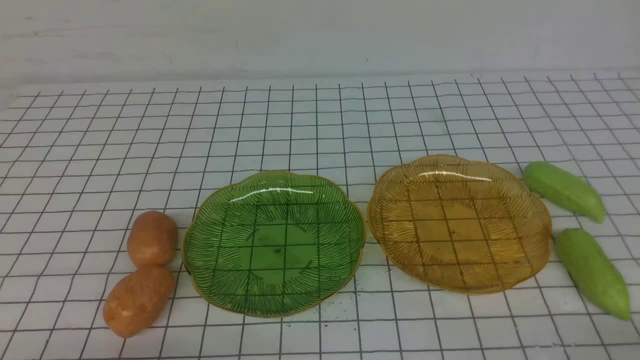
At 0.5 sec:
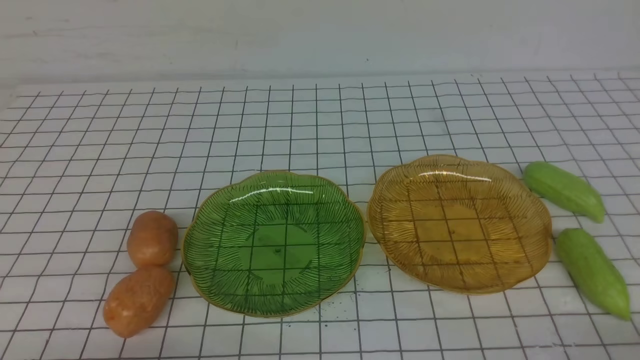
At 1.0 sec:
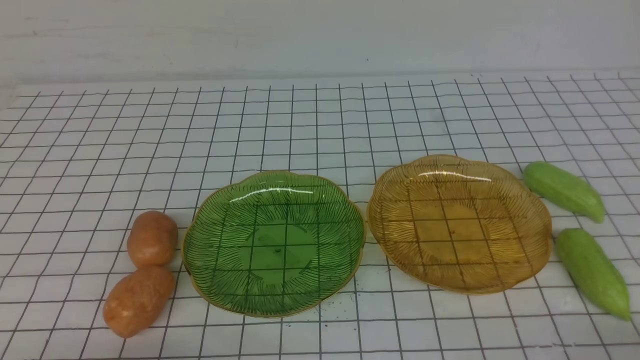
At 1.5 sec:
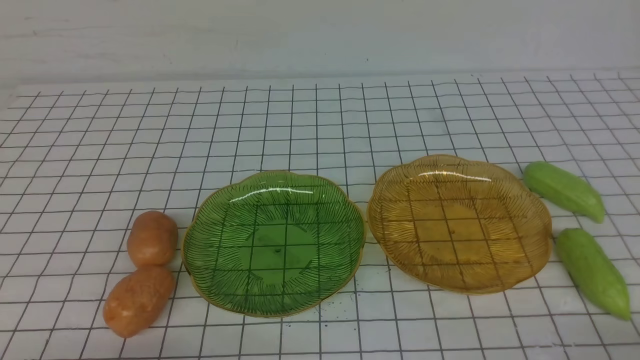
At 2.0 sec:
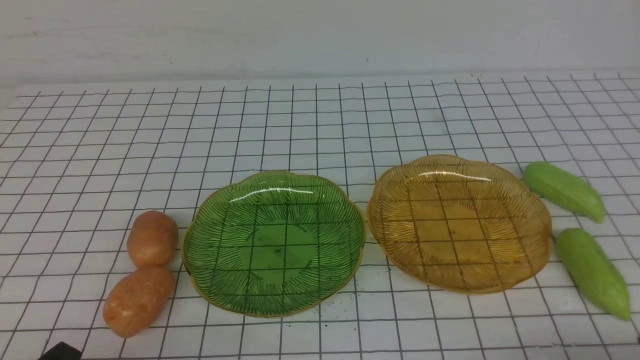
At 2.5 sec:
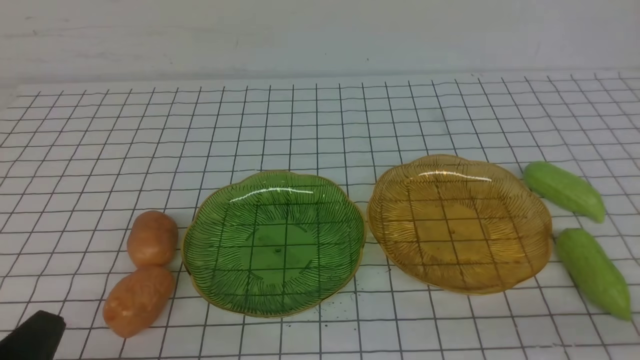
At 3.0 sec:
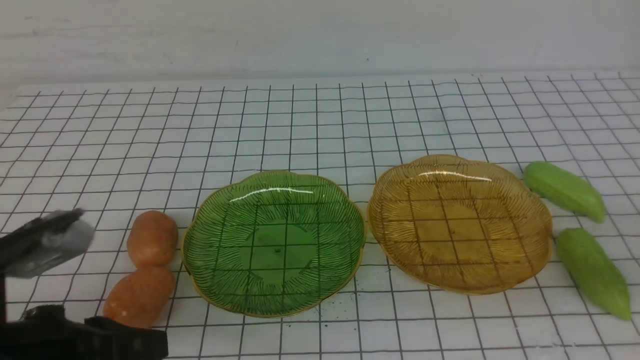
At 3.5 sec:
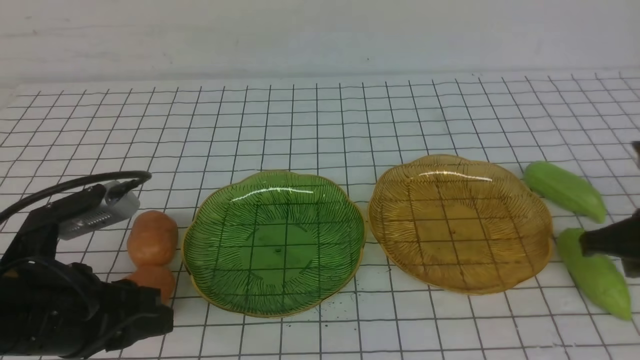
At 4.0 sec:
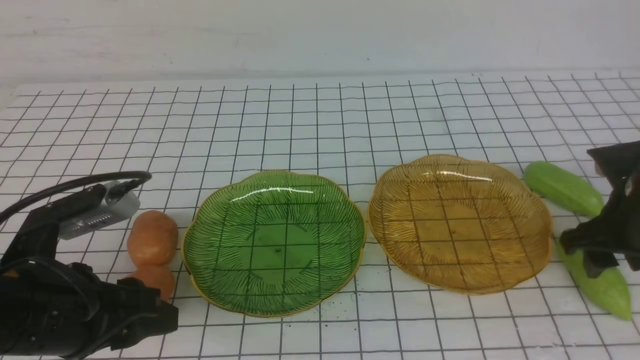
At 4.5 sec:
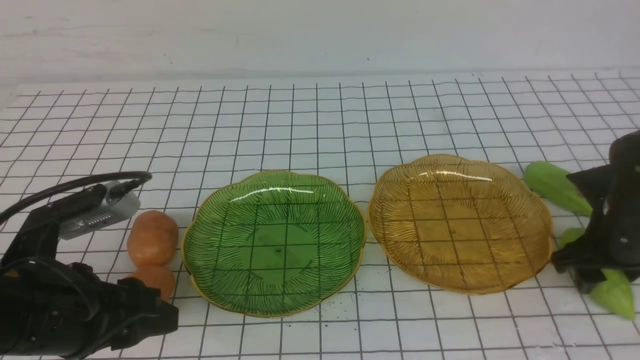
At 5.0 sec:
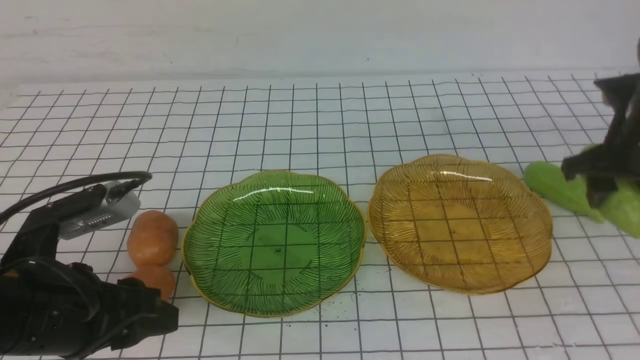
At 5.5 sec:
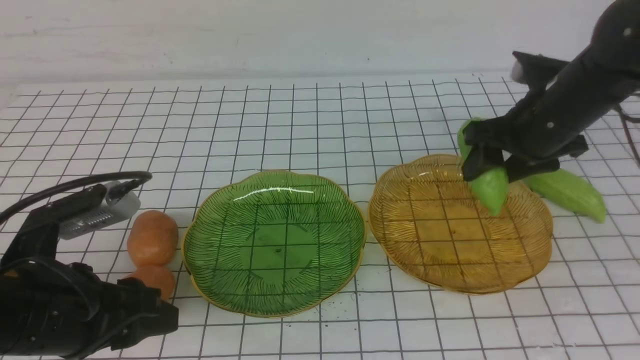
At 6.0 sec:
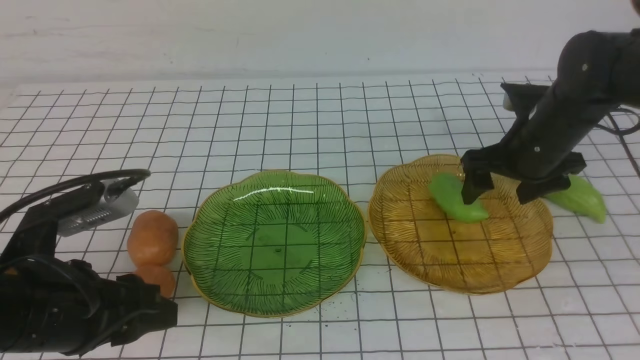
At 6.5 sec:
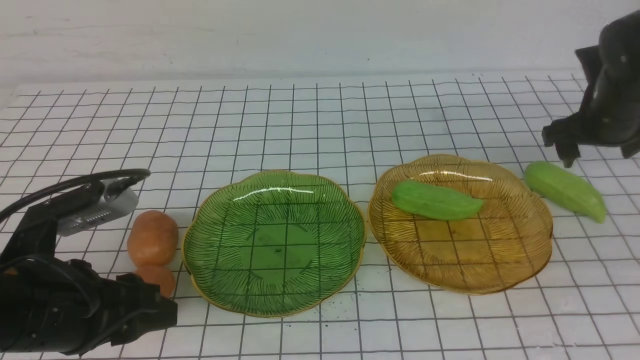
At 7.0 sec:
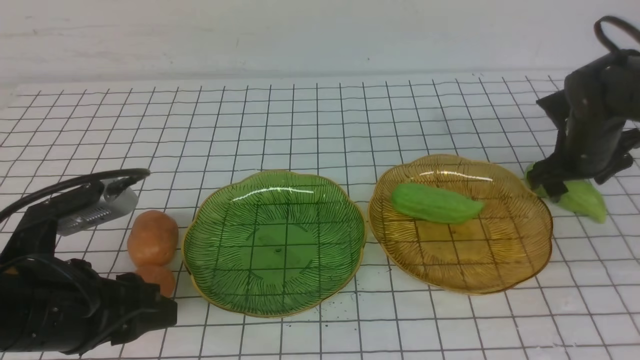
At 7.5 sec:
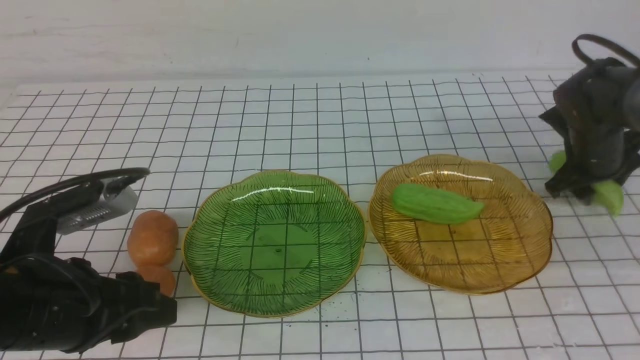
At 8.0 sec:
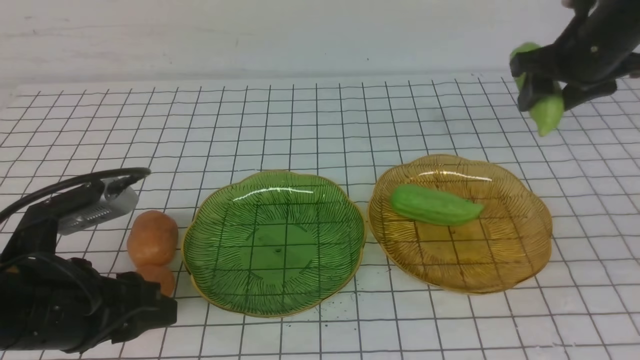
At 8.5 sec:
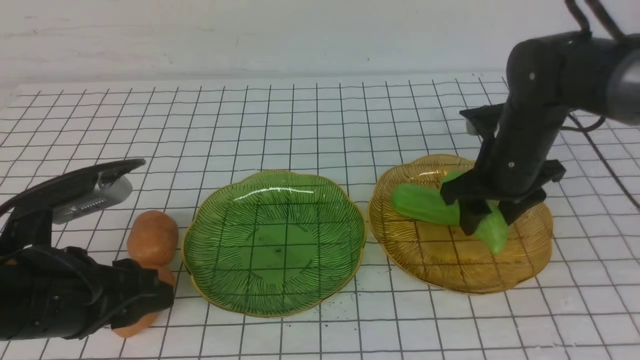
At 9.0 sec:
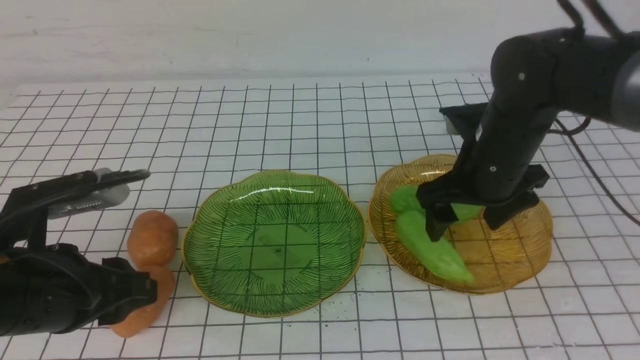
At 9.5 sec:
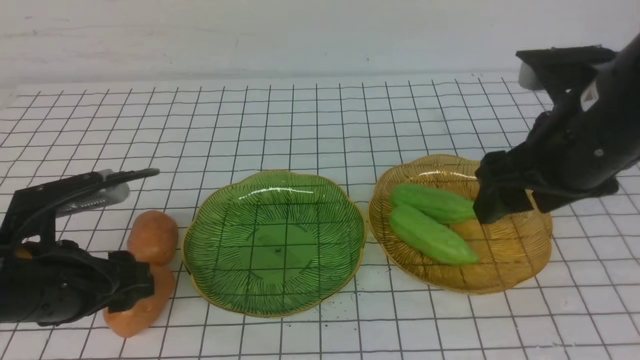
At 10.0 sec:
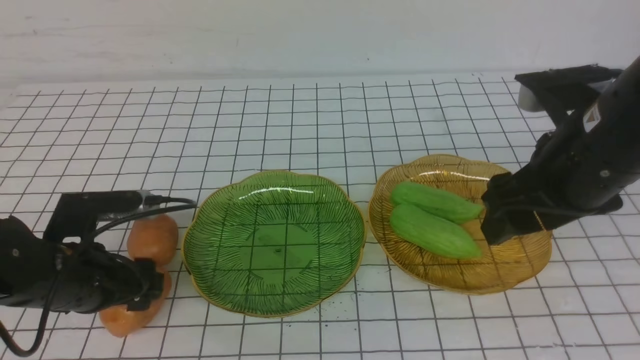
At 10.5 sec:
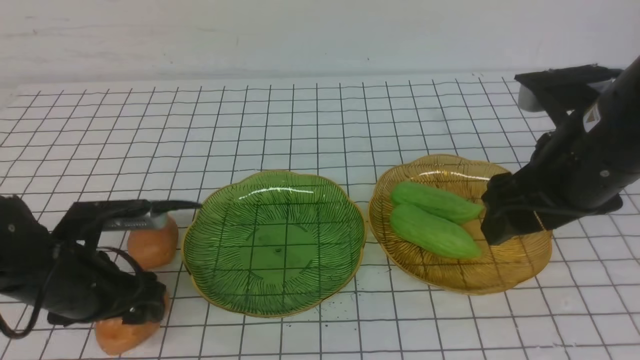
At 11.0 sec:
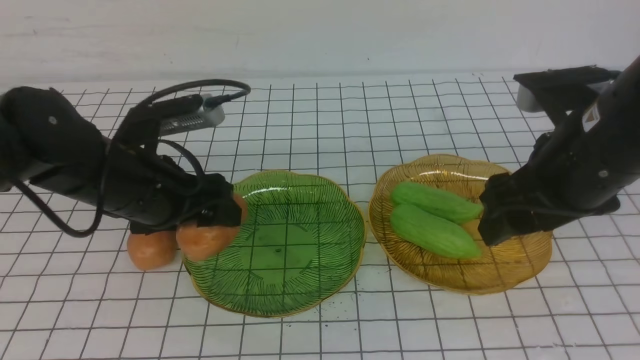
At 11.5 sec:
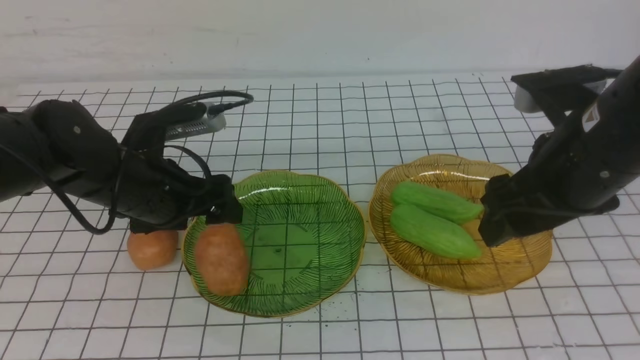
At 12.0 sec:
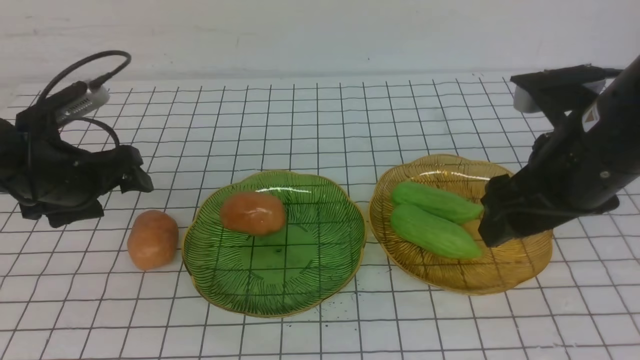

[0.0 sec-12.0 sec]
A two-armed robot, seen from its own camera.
Step, 0.0 sec to 8.5 sec: use the right arm to grab a chayote and put it into the right plate.
Step, 9.5 sec to 11.0 sec: Grab a potato with your left arm and put it on the left plate.
2.0 sec to 4.0 sec: The right gripper heads forward, covering approximately 25 cm, and opens its fingers, while the left gripper goes roughly 15 cm forward and upward, and opens.
4.0 sec to 6.0 sec: The right gripper travels forward and to the left by approximately 10 cm, moves roughly 5 cm upward and comes back, and opens its fingers.
6.0 sec to 8.0 sec: The right gripper goes roughly 5 cm to the right and upward.
8.0 sec to 10.0 sec: The right gripper travels backward and to the left by approximately 20 cm. The left gripper moves forward and downward, about 10 cm, and opens its fingers.
10.0 sec to 12.0 sec: The left gripper shifts about 10 cm forward.

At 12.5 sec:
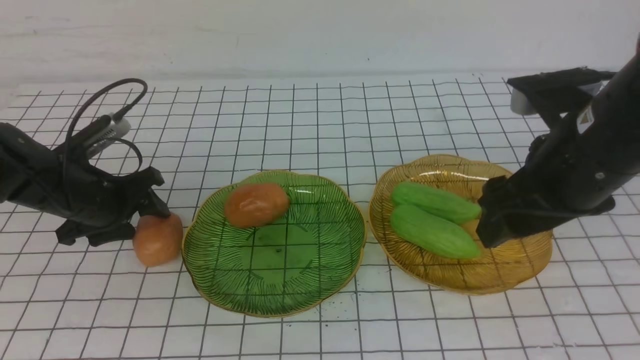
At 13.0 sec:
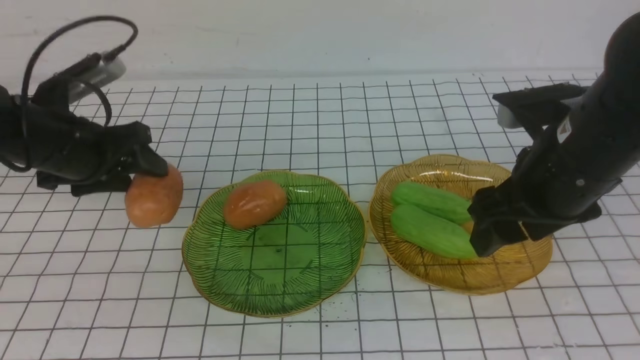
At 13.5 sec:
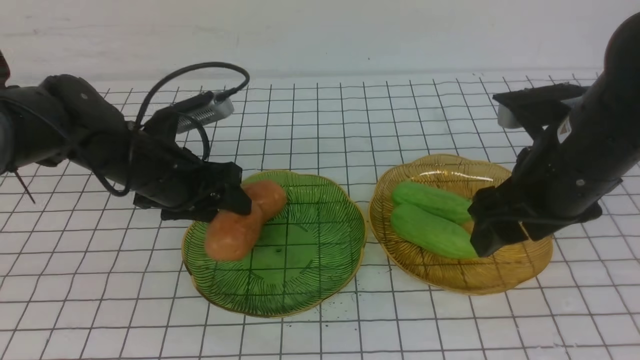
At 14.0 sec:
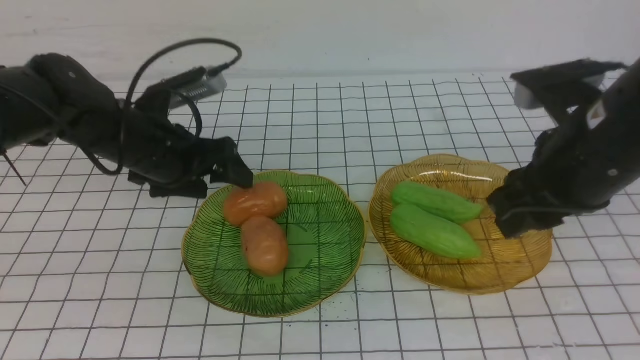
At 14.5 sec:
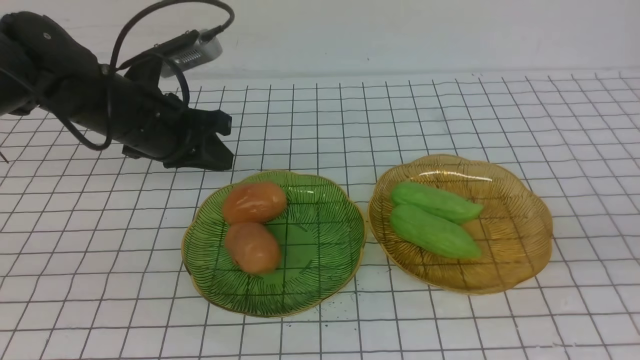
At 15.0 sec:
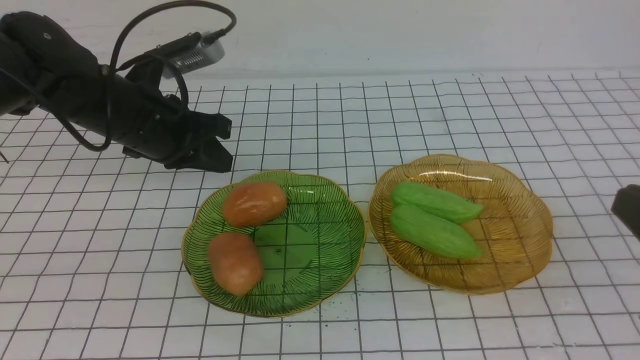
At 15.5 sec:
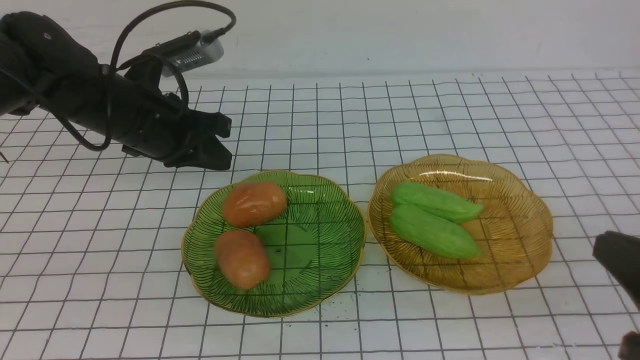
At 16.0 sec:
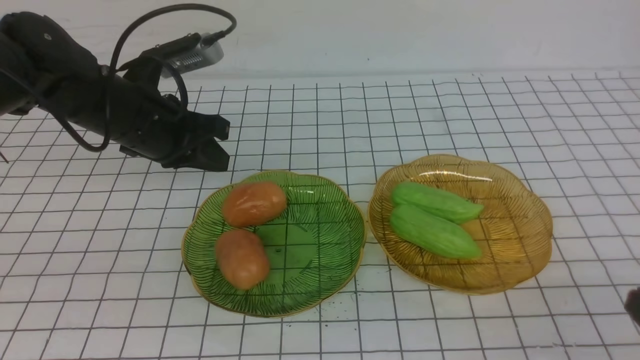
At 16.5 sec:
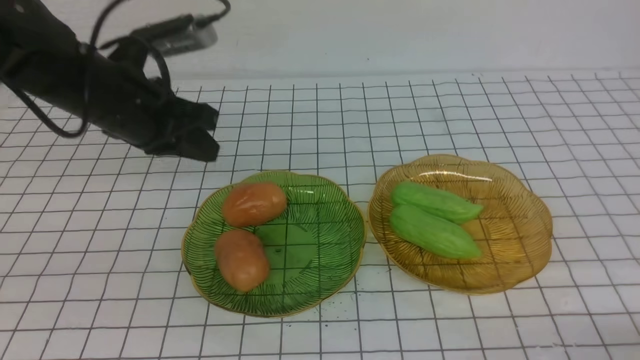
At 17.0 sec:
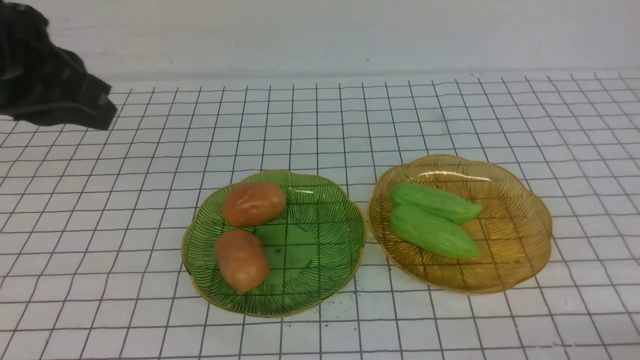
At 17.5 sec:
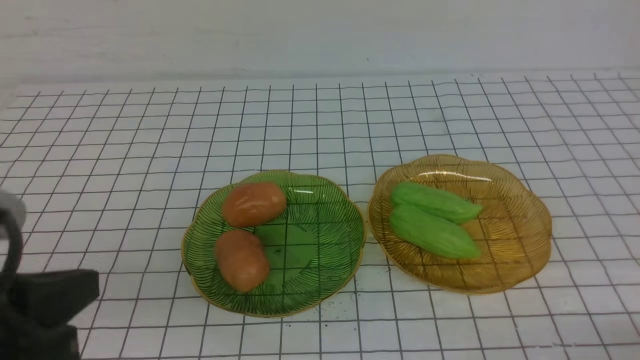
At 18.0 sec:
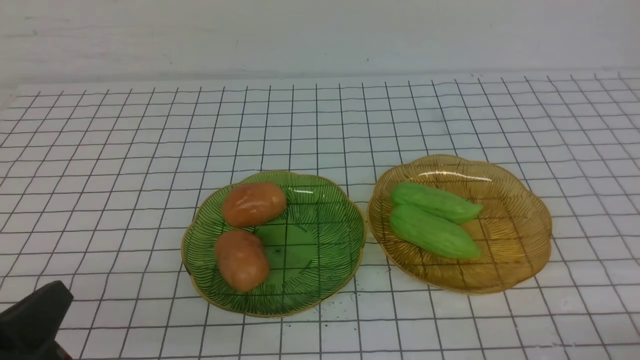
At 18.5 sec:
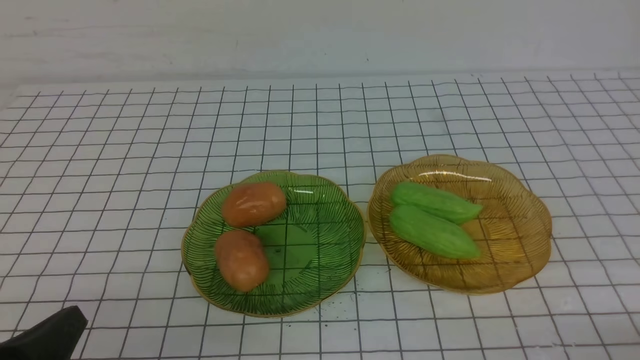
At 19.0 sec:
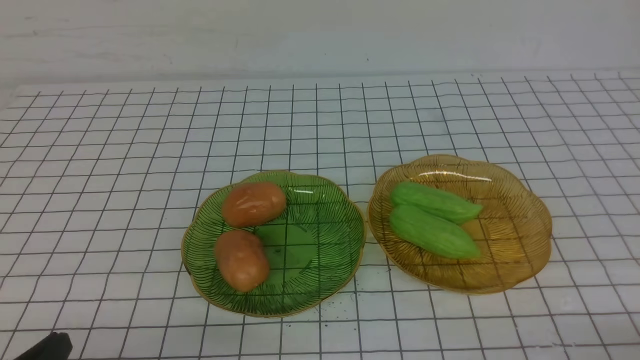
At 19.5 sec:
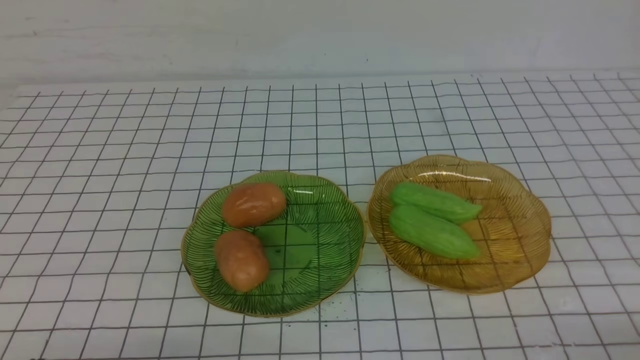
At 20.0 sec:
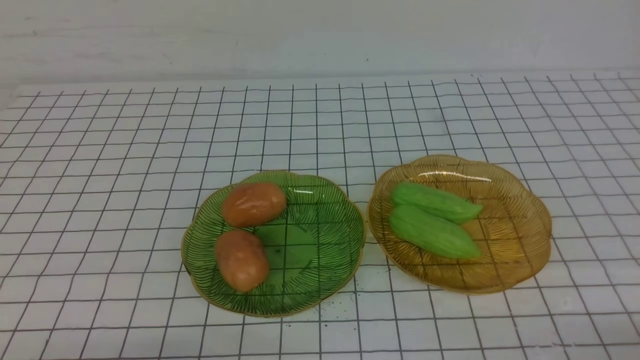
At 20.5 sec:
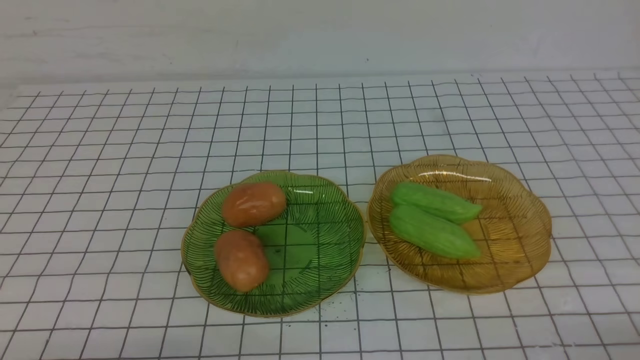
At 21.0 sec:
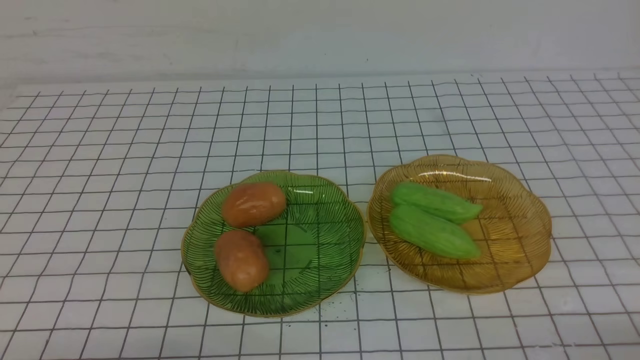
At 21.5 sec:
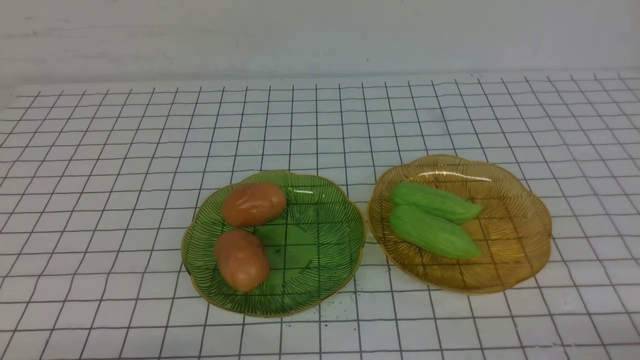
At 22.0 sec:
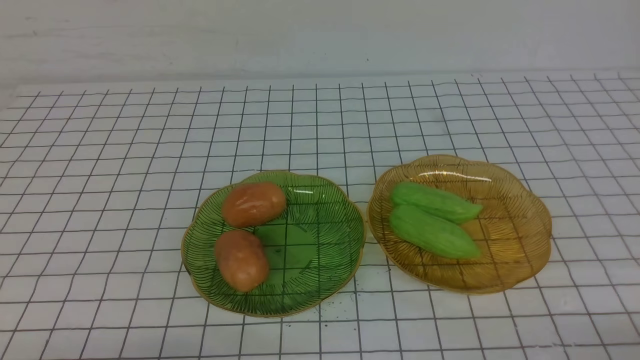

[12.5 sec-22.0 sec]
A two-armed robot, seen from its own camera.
12.5 sec to 14.5 sec: The left gripper shifts roughly 15 cm upward and to the right, and closes, while the right gripper shifts approximately 15 cm backward and upward, and closes up.
14.5 sec to 16.5 sec: The right gripper moves downward, approximately 20 cm.
16.5 sec to 18.0 sec: The left gripper shifts about 25 cm backward.
18.0 sec to 20.0 sec: The left gripper shifts roughly 5 cm downward.
20.0 sec to 22.0 sec: Neither gripper changes place.
